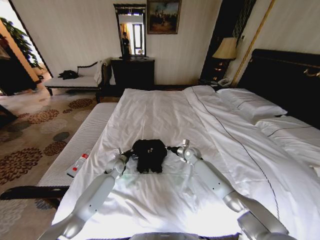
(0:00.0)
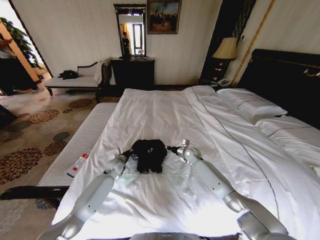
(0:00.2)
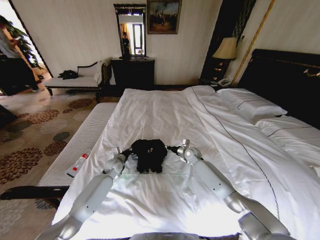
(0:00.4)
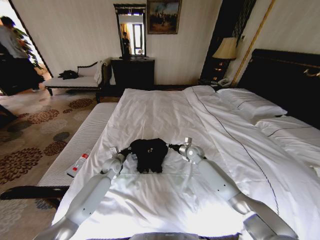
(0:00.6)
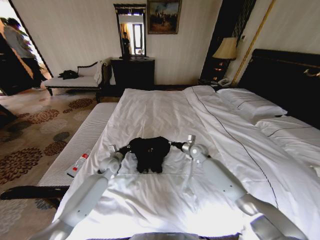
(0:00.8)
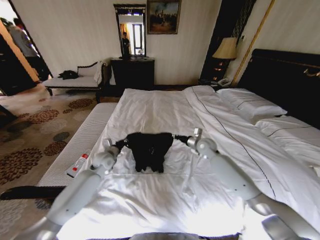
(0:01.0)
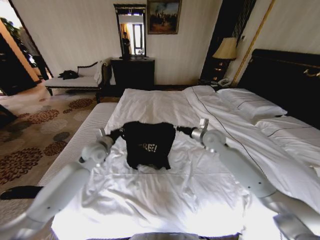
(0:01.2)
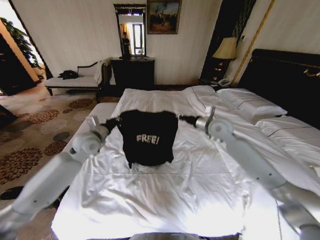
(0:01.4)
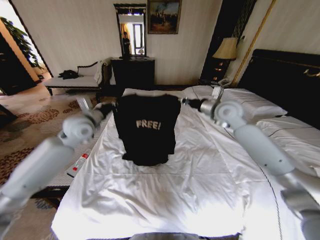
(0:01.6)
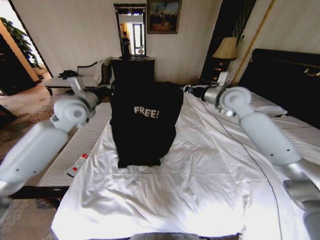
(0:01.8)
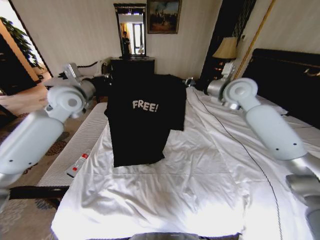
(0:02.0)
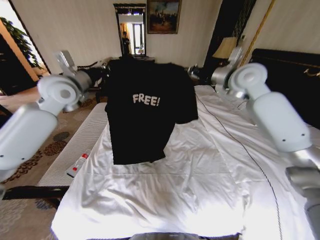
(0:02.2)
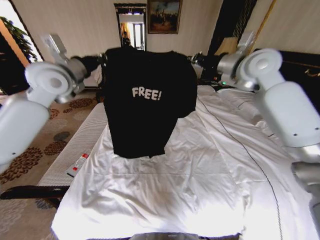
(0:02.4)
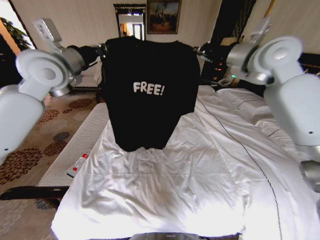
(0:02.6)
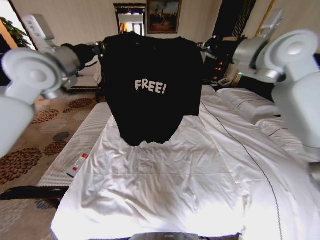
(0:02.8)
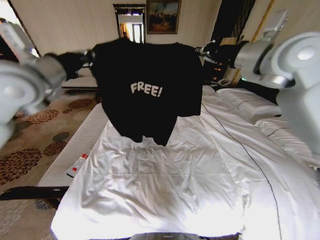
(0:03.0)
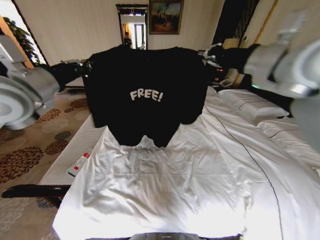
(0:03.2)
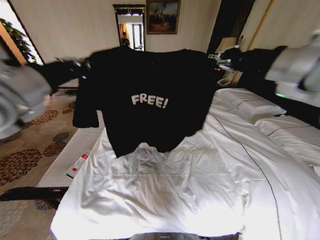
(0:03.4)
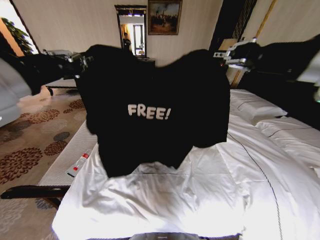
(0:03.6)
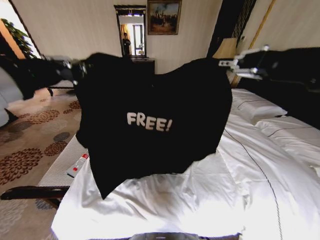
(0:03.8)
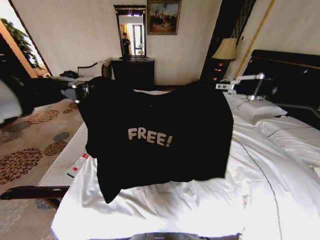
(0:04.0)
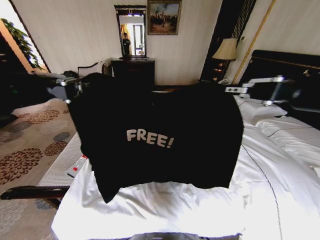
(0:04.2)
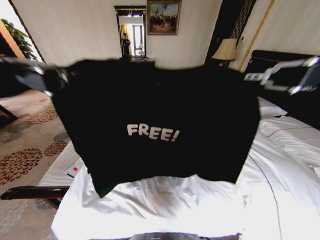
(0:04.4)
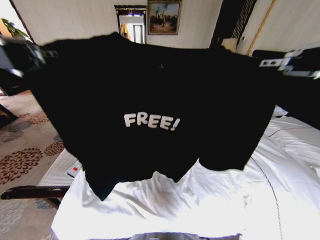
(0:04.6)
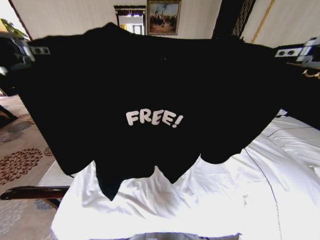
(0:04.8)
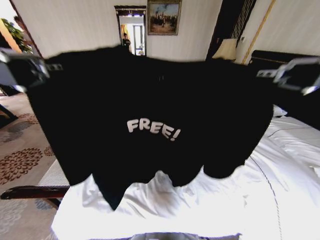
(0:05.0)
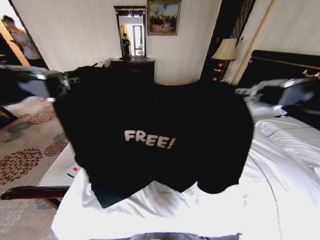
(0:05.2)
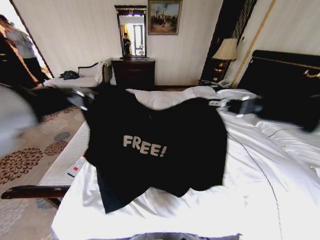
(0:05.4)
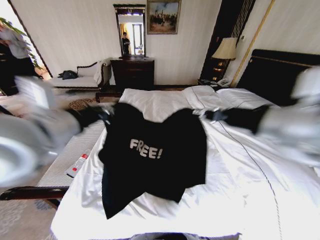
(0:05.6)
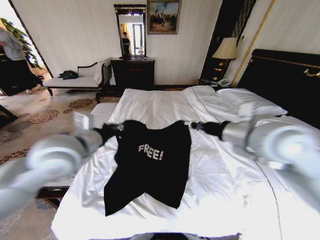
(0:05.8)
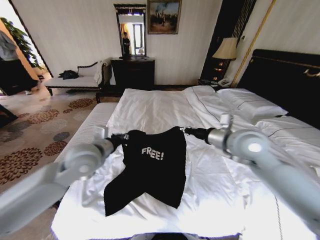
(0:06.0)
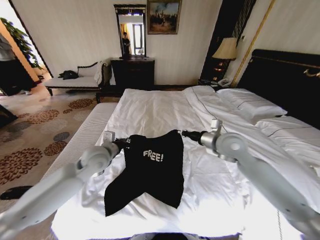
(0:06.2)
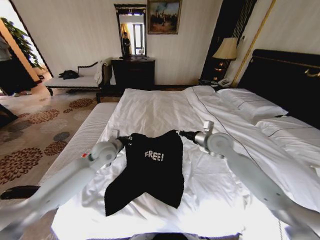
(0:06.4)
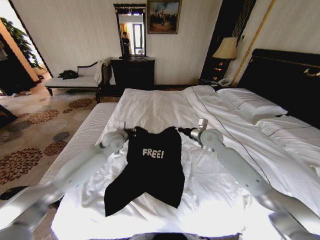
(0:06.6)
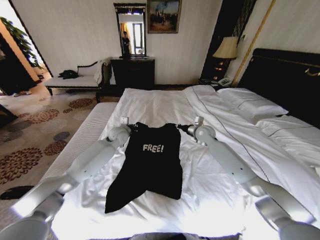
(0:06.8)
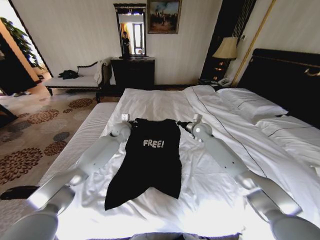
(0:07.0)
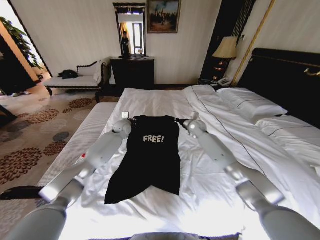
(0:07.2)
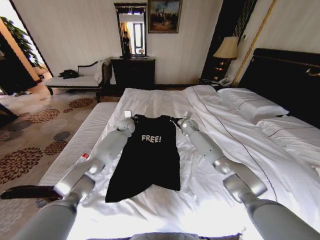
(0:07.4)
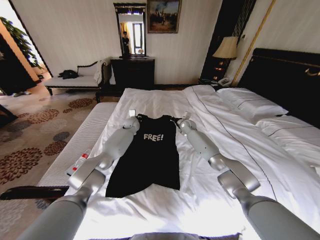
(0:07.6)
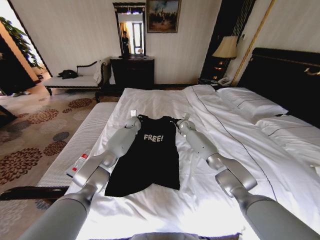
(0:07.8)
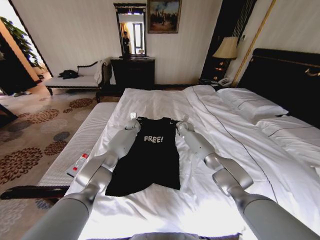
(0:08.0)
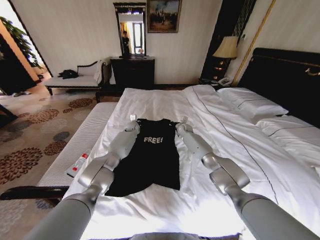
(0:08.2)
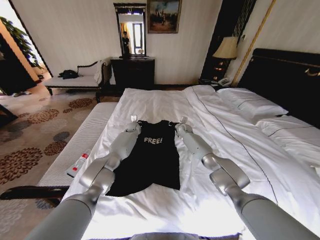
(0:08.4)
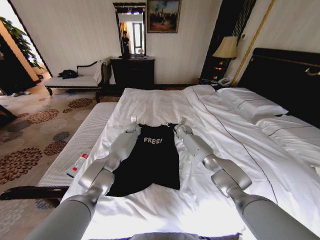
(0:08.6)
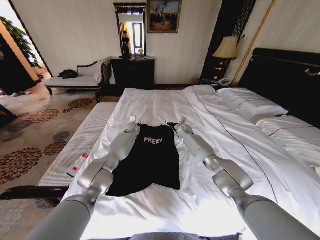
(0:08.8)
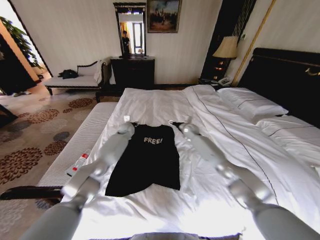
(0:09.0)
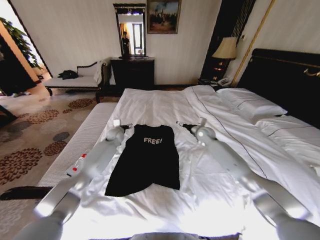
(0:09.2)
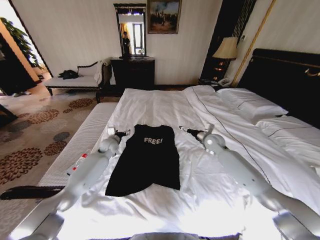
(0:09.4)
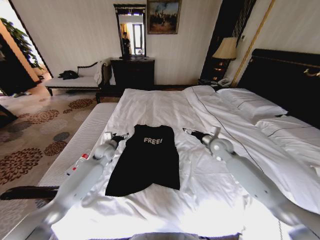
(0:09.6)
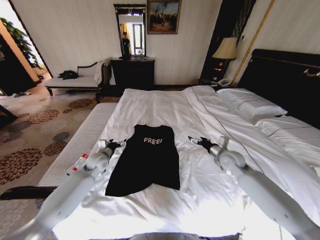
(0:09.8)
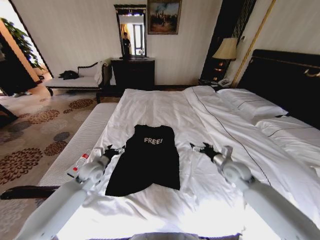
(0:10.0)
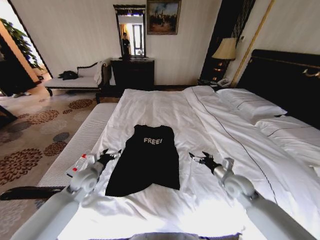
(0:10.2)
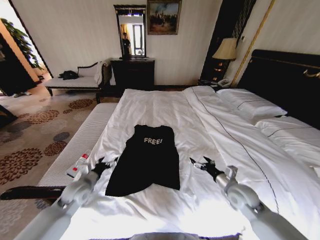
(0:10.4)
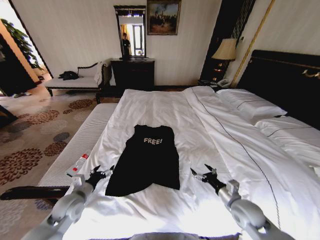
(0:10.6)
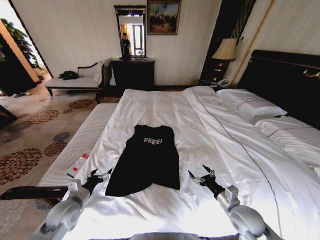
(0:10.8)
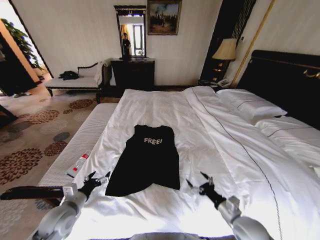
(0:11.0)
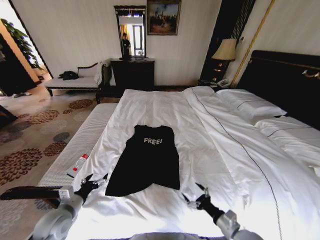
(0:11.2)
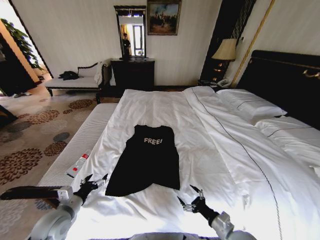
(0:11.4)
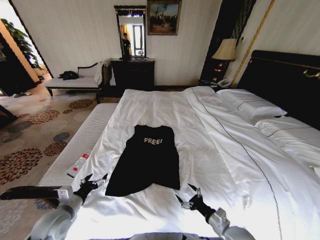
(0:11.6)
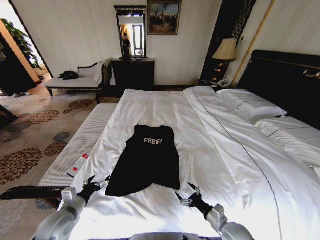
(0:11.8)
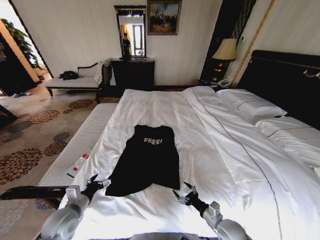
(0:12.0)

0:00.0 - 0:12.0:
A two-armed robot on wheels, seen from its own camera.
Task of the whole recording: Fold the clothes on the bed.
0:00.0 - 0:01.6: The two grippers go approximately 30 cm upward.
0:01.6 - 0:03.0: Both grippers move upward, some 15 cm.
0:03.0 - 0:04.4: Both grippers move backward, about 25 cm.
0:04.4 - 0:06.0: Both grippers travel together downward and forward, about 35 cm.
0:06.0 - 0:07.6: The right gripper goes about 35 cm forward and downward; the left gripper moves forward, roughly 35 cm.
0:07.6 - 0:09.0: The right gripper opens, while the left gripper opens up.
0:09.0 - 0:10.4: The left gripper shifts approximately 40 cm backward and to the left, while the right gripper moves backward, roughly 35 cm.
0:10.4 - 0:12.0: The left gripper shifts some 10 cm backward; the right gripper goes approximately 15 cm backward, downward and to the left.

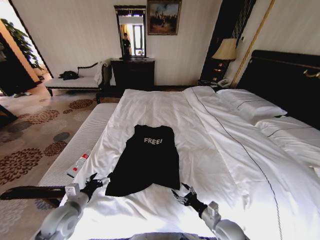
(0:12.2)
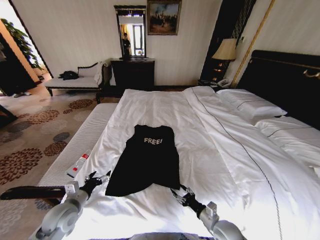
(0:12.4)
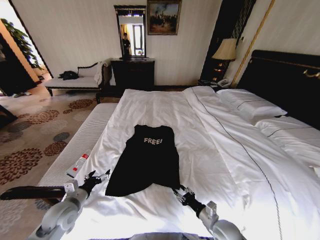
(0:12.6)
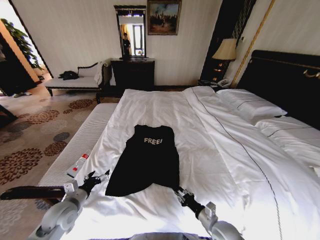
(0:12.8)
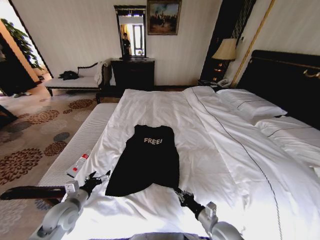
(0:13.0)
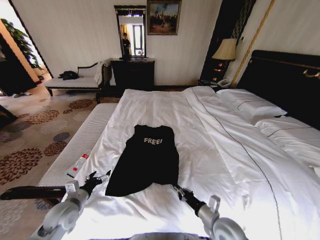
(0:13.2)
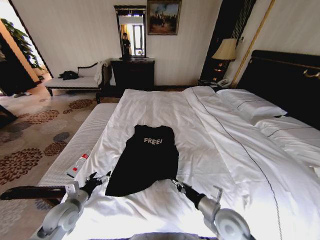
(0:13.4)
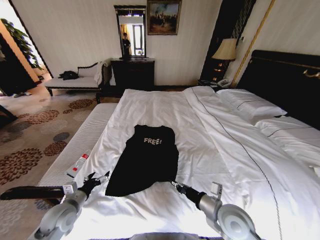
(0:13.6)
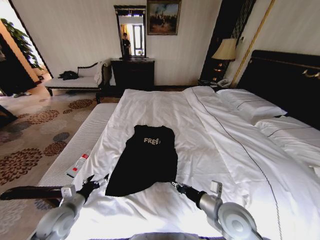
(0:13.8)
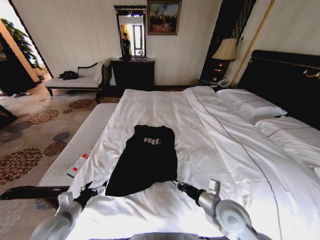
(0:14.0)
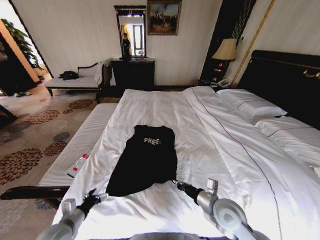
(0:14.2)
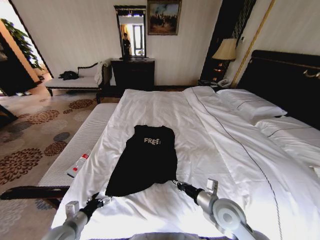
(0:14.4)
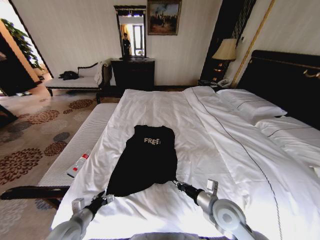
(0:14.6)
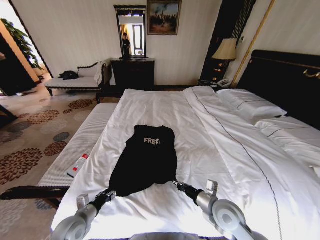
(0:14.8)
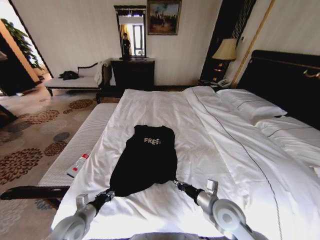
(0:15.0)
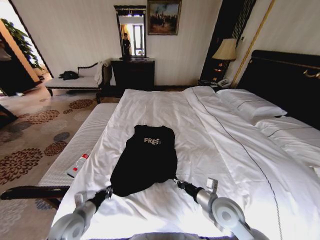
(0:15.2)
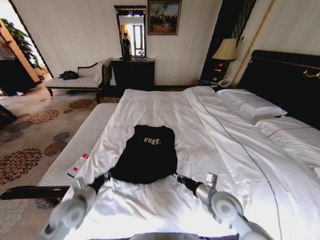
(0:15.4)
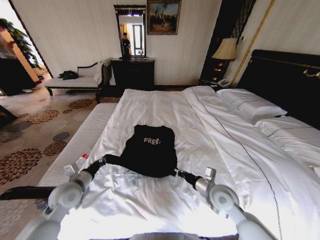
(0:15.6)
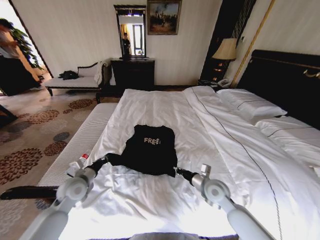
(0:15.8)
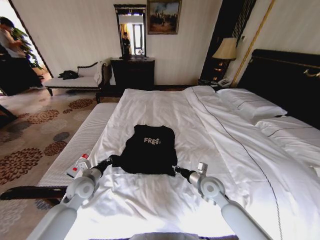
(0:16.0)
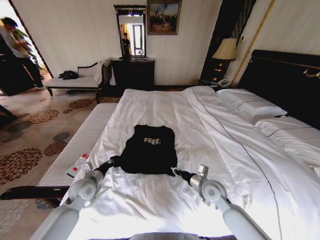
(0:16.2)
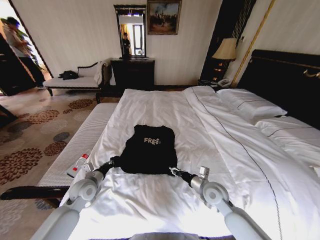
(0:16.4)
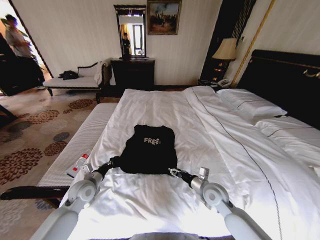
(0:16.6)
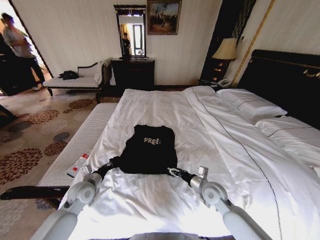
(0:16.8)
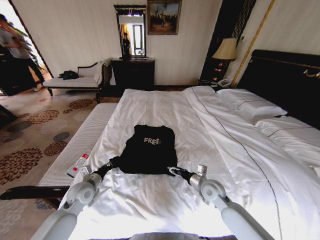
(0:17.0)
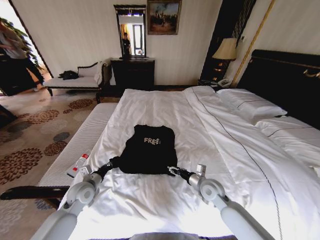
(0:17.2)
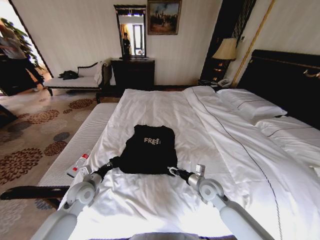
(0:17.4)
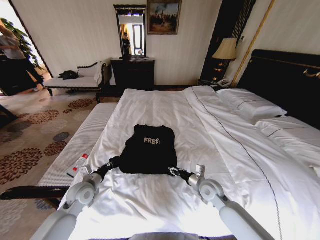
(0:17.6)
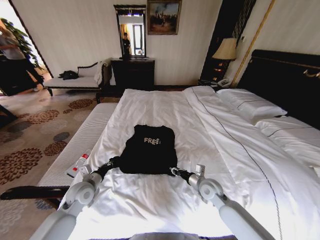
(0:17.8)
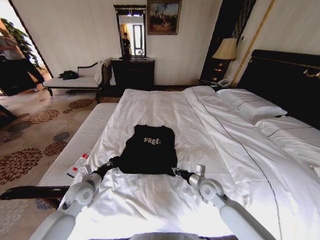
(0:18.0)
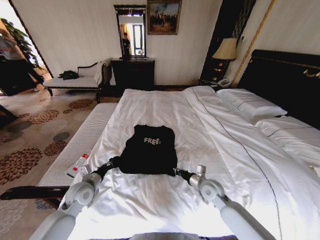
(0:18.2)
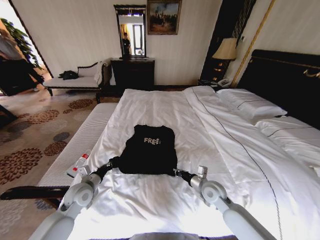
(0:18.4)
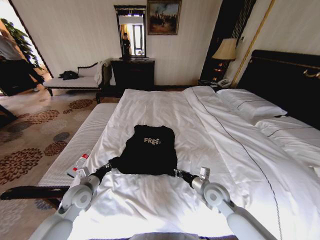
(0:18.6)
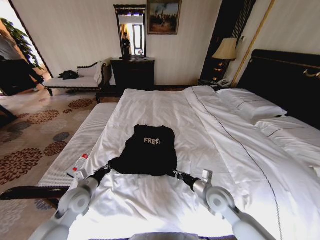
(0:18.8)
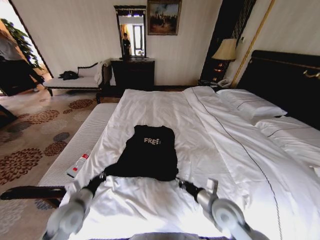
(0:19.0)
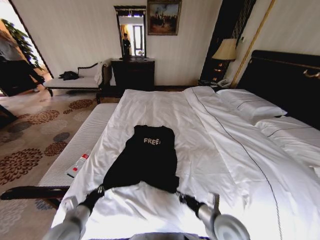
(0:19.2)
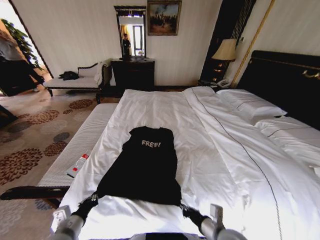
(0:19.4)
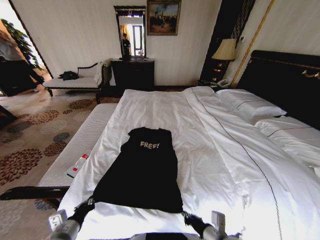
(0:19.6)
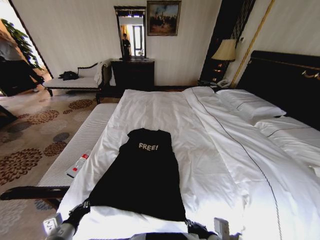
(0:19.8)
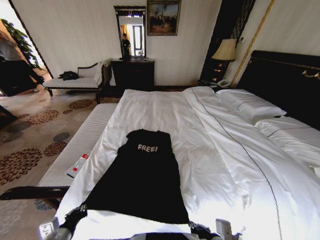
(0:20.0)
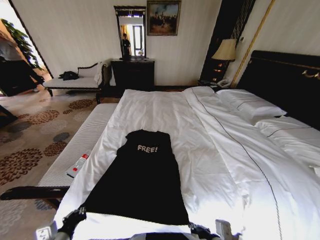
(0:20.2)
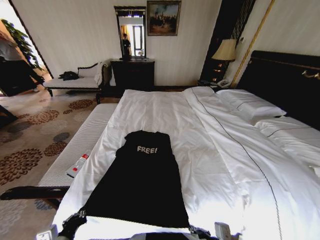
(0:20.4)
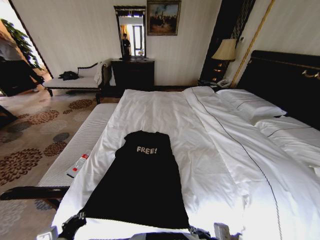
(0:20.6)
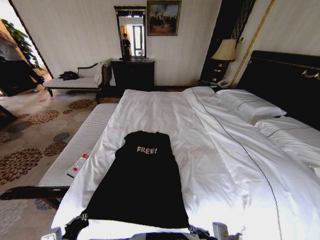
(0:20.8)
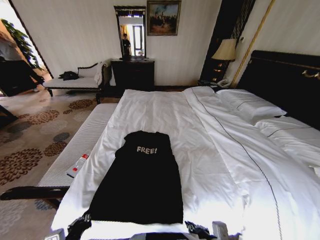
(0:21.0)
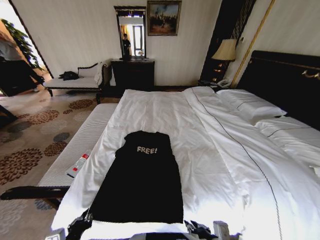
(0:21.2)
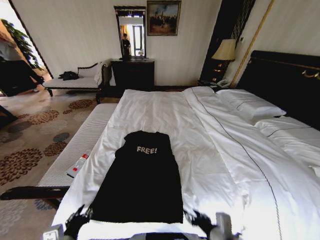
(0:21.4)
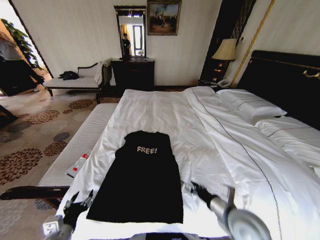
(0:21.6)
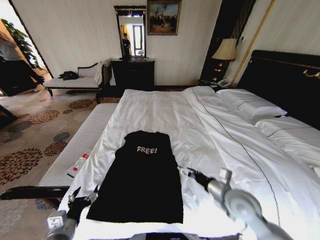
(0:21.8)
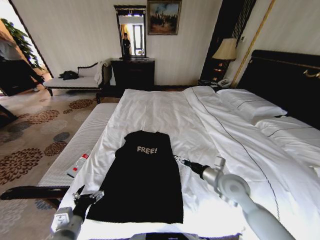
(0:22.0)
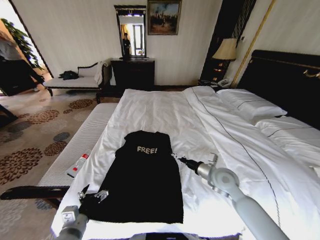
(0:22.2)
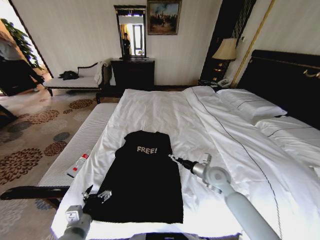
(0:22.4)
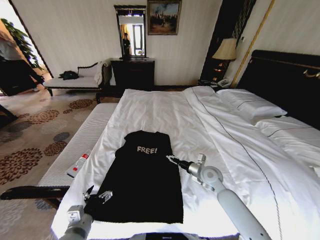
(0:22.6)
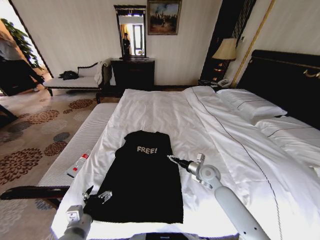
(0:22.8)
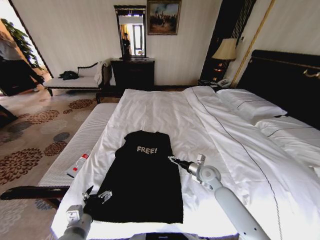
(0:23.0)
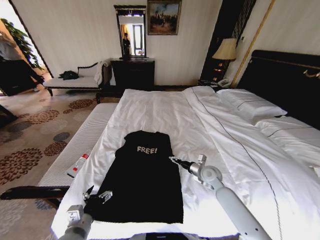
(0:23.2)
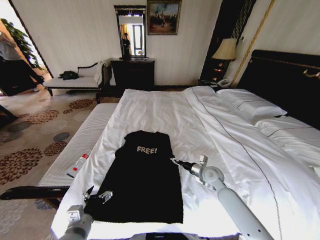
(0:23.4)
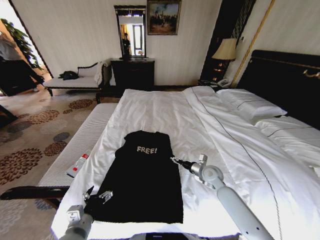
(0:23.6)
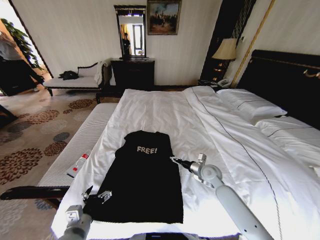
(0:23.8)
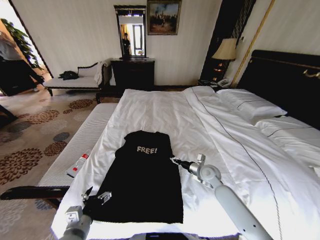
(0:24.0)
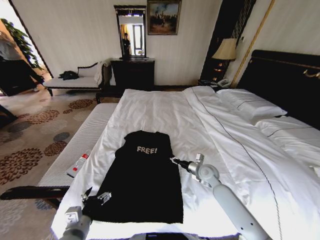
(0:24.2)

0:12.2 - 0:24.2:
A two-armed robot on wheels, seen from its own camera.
Task of the whole recording: Fold the clothes on the bed.
0:12.2 - 0:13.8: The right gripper is displaced upward by about 15 cm, and closes its fingers.
0:13.8 - 0:15.2: The left gripper closes up.
0:15.2 - 0:16.6: The right gripper goes roughly 5 cm forward, and opens up, while the left gripper heads forward, covering some 10 cm.
0:16.6 - 0:18.2: The right gripper closes up.
0:18.2 - 0:19.8: The two grippers go some 20 cm backward.
0:19.8 - 0:21.2: The left gripper ends up some 5 cm from where it was.
0:21.2 - 0:22.6: The right gripper is displaced forward by about 30 cm, and opens, while the left gripper is displaced forward by some 5 cm, and opens its fingers.
0:22.6 - 0:24.2: The right gripper closes up.
